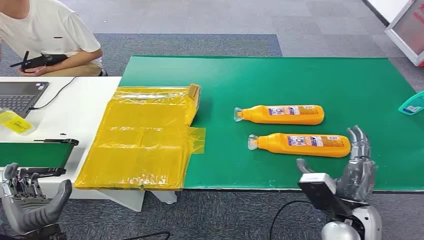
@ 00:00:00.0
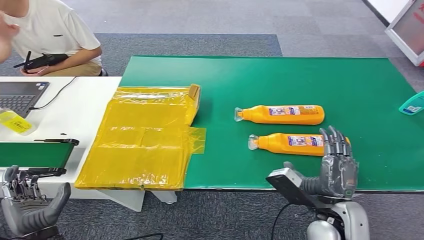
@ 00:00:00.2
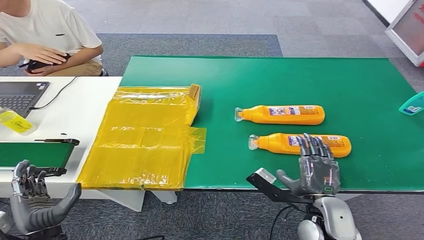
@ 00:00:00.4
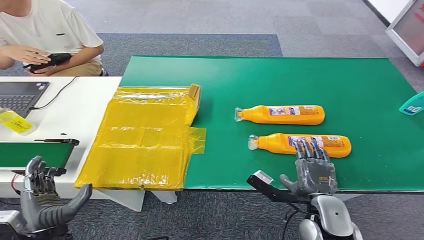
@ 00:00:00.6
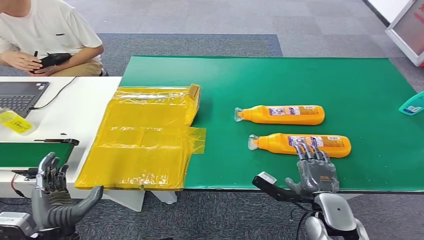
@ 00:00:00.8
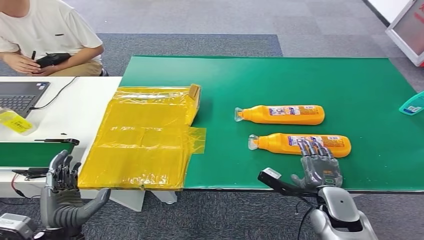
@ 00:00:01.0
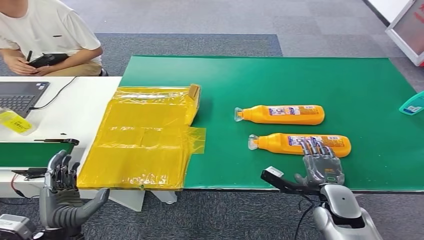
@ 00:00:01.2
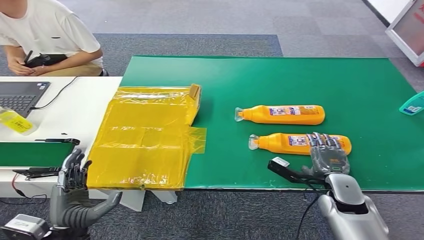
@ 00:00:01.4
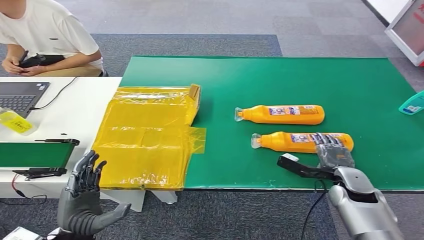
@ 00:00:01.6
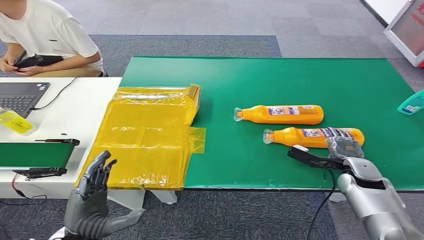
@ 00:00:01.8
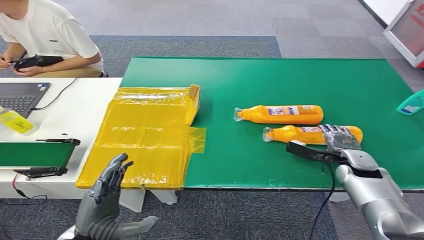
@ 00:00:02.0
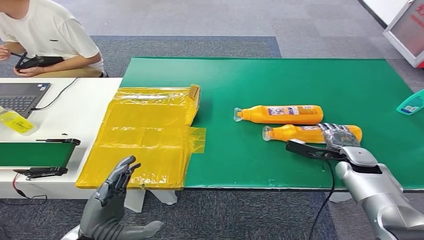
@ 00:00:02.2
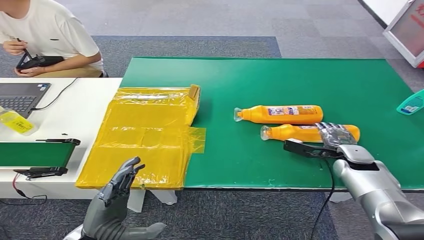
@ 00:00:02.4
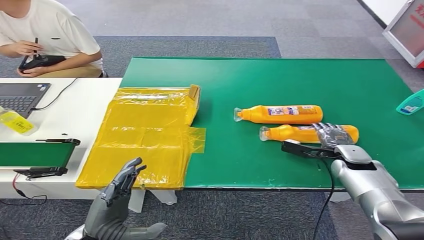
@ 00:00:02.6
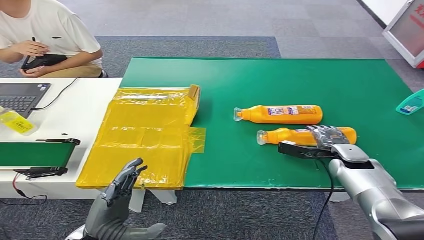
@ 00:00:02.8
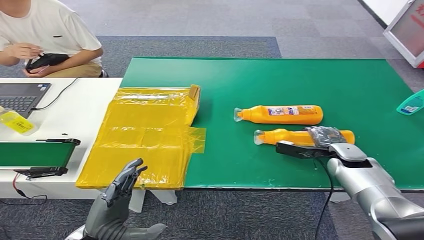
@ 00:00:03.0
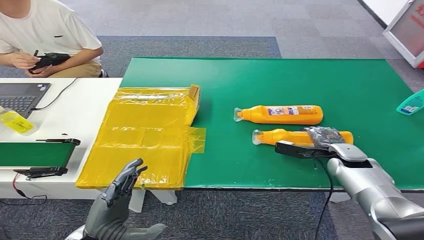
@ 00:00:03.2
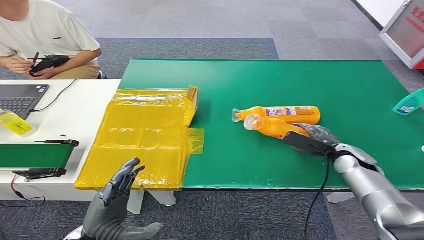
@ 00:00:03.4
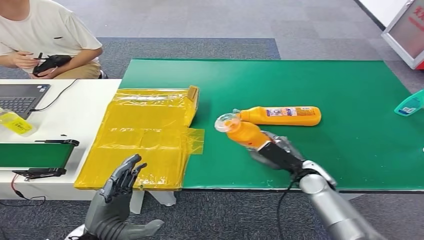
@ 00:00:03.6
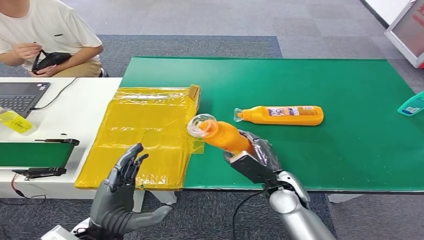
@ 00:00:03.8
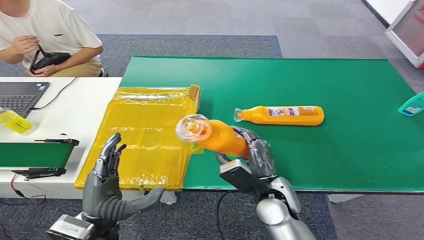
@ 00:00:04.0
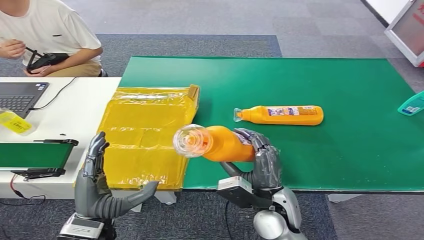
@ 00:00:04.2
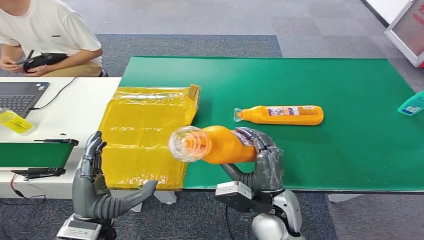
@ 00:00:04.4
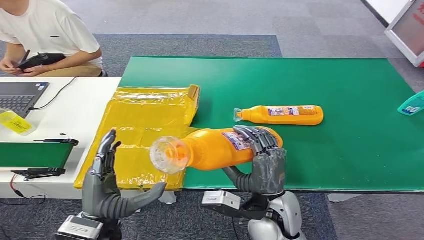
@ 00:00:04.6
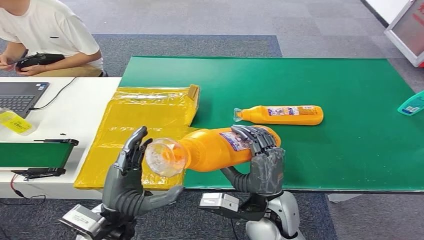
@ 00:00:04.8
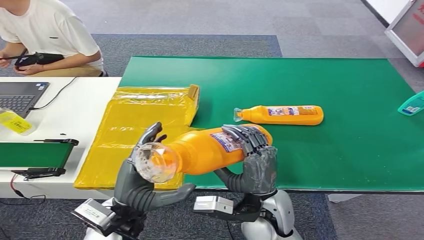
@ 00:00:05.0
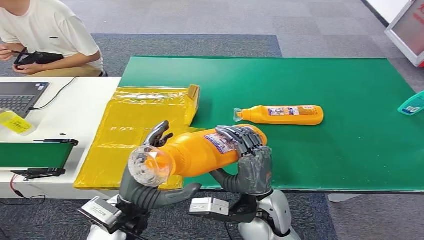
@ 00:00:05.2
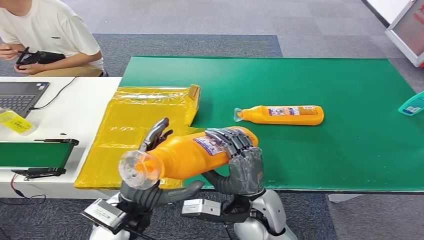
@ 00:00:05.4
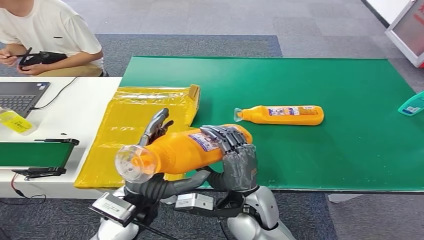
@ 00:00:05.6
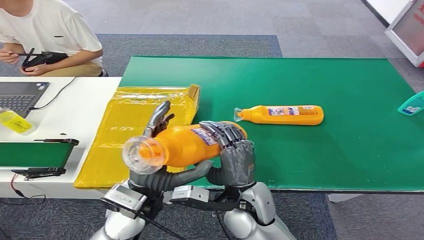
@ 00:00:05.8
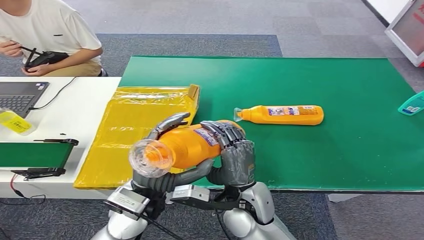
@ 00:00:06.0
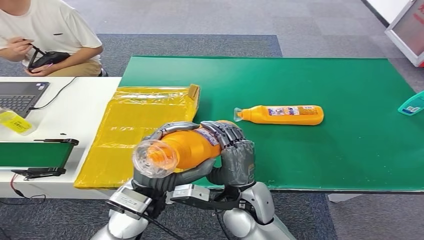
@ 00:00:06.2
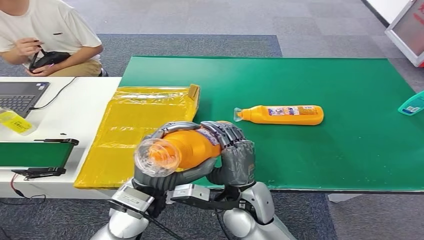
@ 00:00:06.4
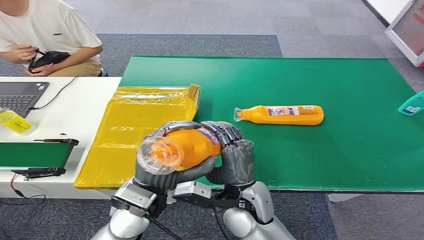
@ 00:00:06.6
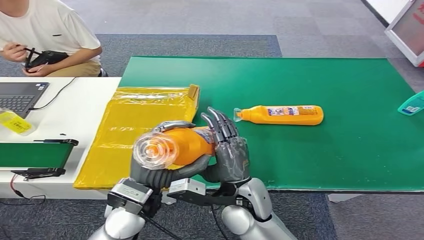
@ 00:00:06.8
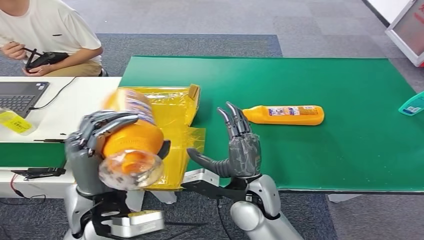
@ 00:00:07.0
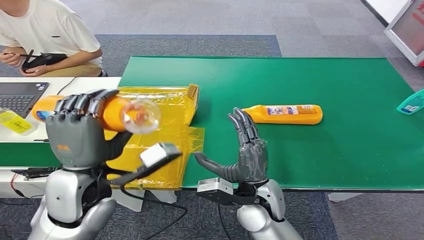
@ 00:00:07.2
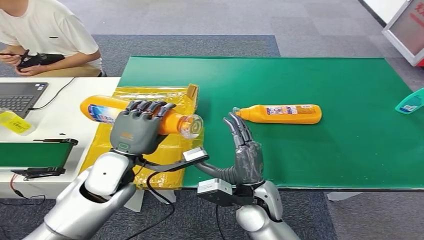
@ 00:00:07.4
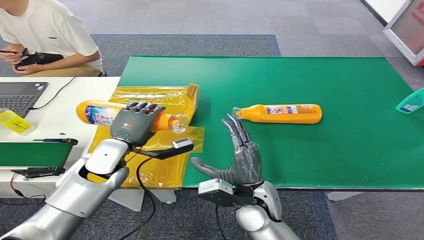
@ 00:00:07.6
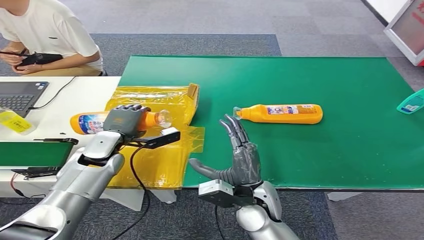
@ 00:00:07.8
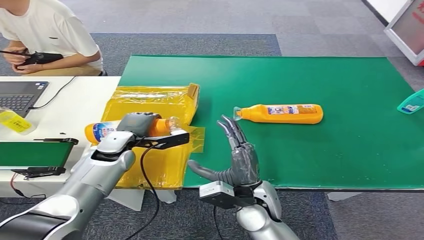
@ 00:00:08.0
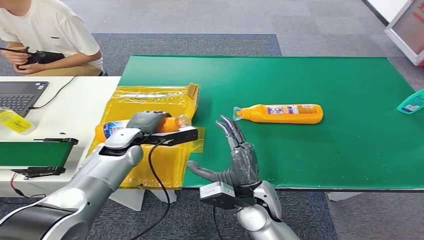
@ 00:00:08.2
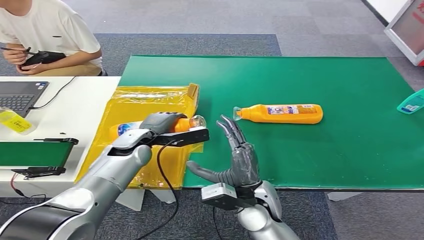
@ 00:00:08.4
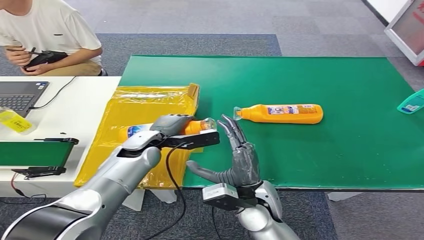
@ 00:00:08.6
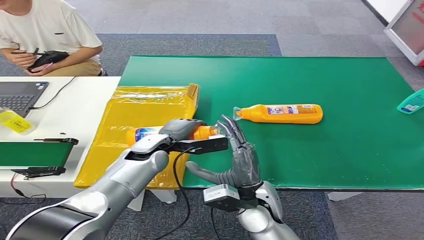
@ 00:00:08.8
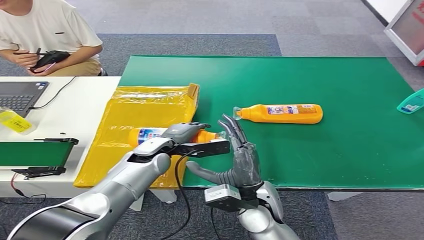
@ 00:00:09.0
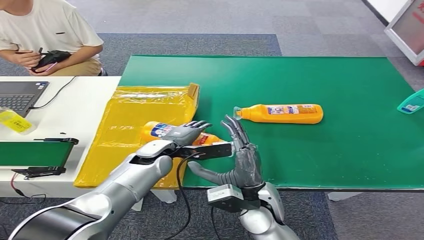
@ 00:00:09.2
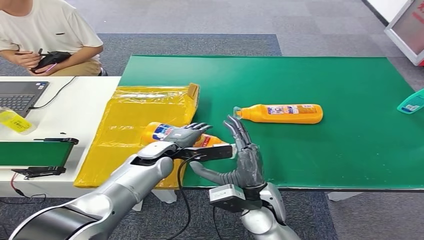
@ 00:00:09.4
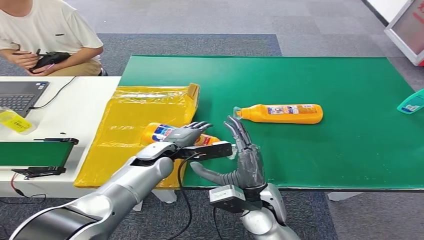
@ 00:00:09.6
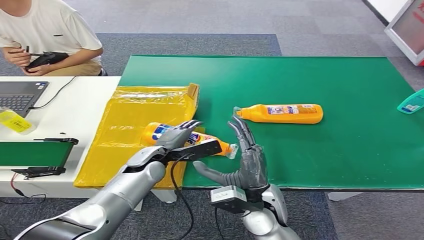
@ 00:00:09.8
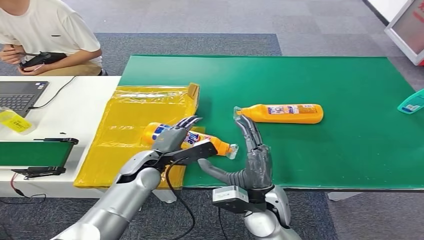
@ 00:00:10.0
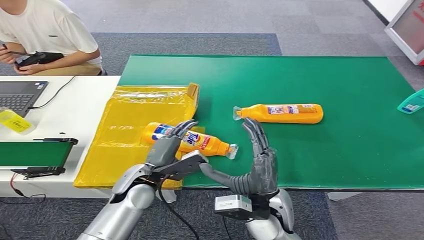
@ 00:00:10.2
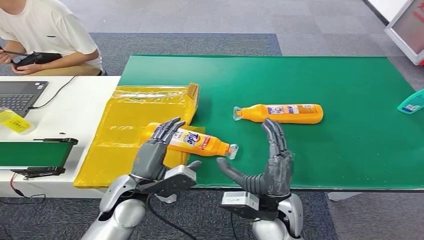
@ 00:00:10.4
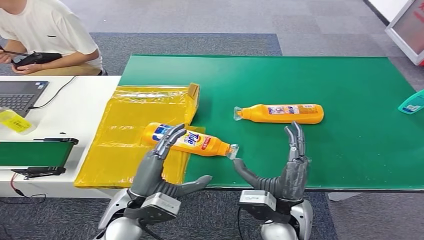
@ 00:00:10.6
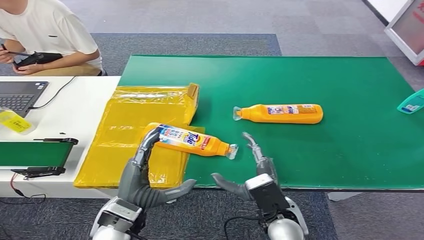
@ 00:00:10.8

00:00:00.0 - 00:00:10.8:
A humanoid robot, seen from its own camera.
Step, 00:00:00.0 - 00:00:04.2: Pick up the bottle from the table.
Step, 00:00:04.4 - 00:00:10.8: Turn the bottle to the front side.
00:00:01.6 - 00:00:03.0: The right hand moves forward, about 10 cm.
00:00:04.6 - 00:00:06.2: The left hand is displaced to the right and forward by approximately 10 cm, while the right hand moves to the left, roughly 5 cm.
00:00:07.8 - 00:00:09.2: The left hand goes approximately 10 cm to the right.
00:00:09.2 - 00:00:10.8: The left hand travels backward by some 20 cm, while the right hand moves roughly 5 cm.
